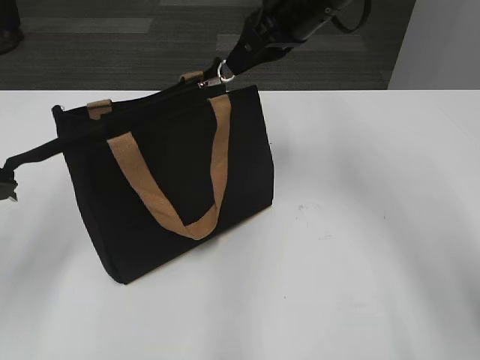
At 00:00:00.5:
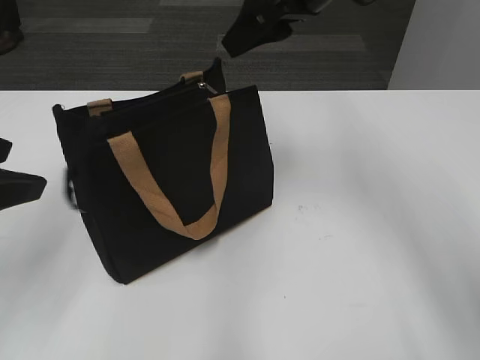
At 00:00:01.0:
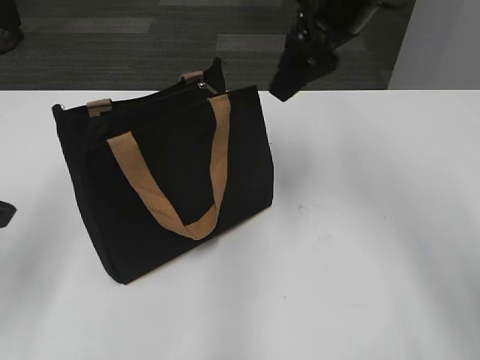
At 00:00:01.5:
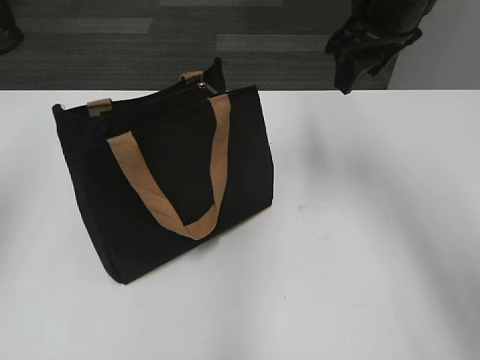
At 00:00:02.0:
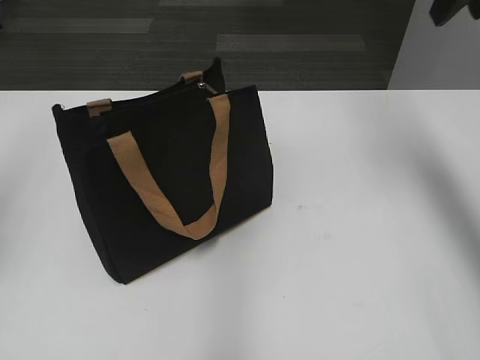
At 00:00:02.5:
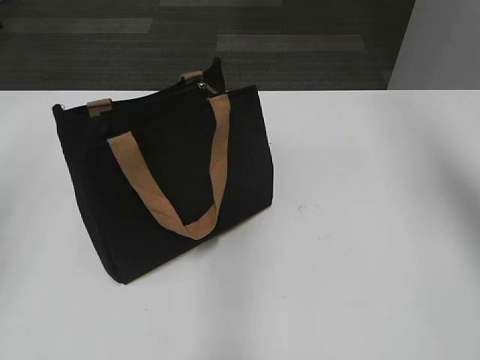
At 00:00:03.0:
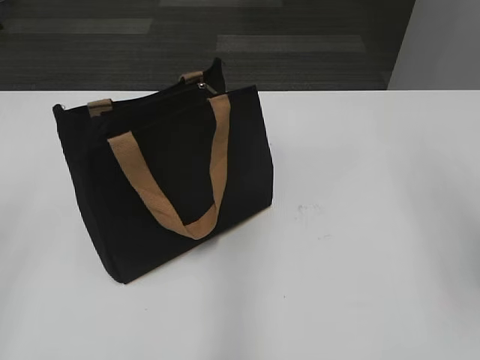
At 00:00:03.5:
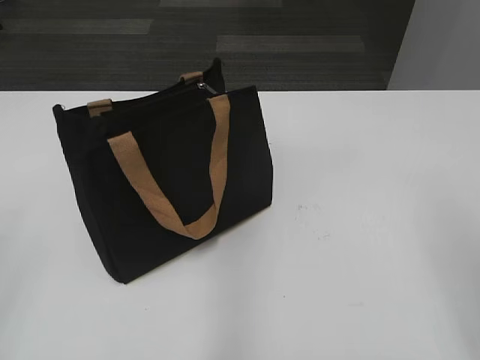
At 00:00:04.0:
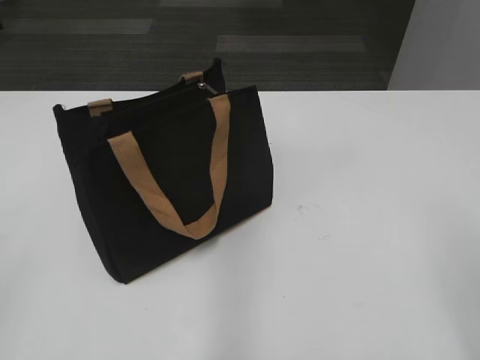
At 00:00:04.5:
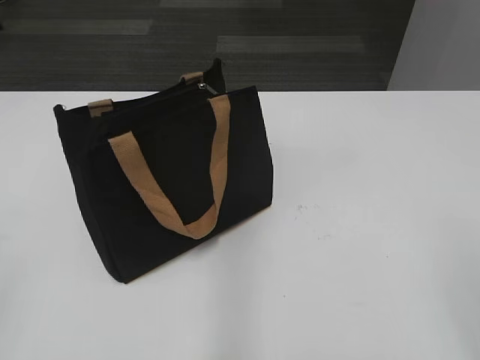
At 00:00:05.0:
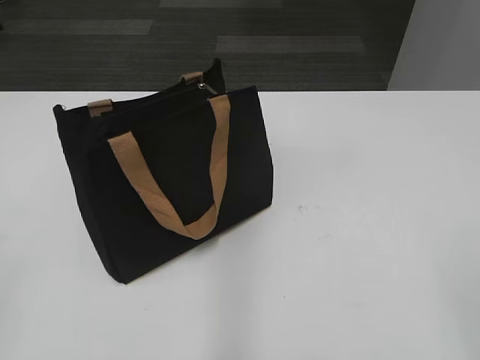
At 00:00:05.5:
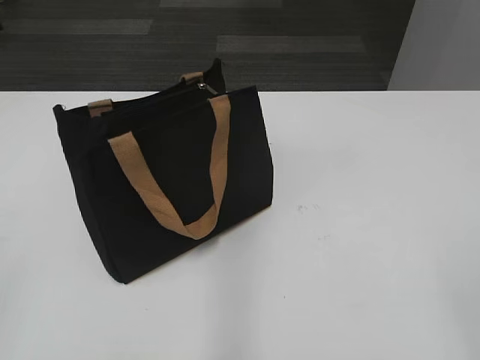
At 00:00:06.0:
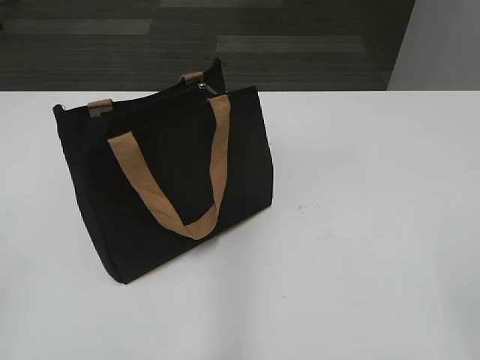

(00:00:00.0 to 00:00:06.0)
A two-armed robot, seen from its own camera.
00:00:00.0 - 00:00:02.0: The left gripper moves upward, approximately 10 cm, and opens up. The right gripper is displaced to the right and upward by about 15 cm, and opens.
00:00:02.0 - 00:00:04.0: The two grippers go roughly 25 cm backward.
